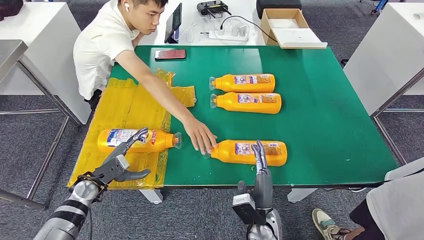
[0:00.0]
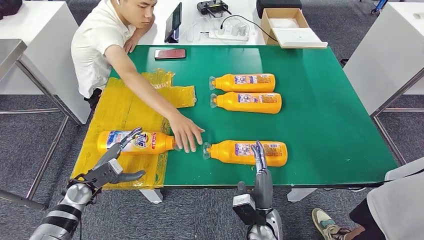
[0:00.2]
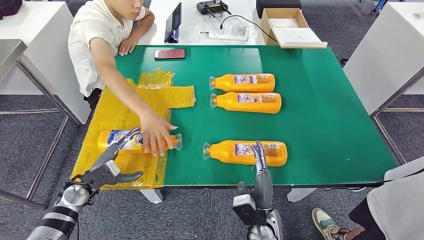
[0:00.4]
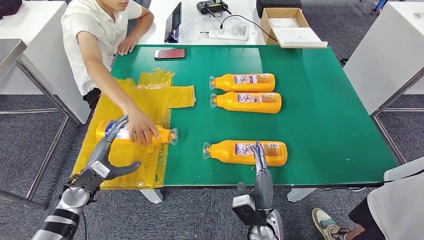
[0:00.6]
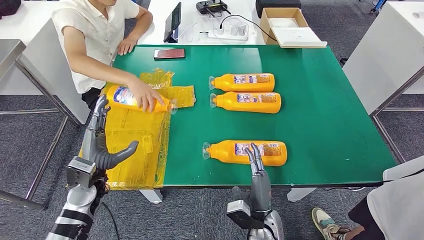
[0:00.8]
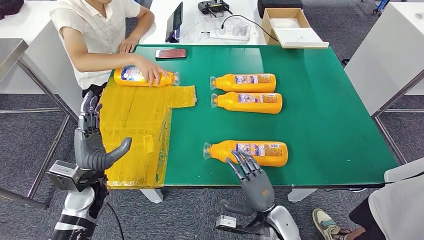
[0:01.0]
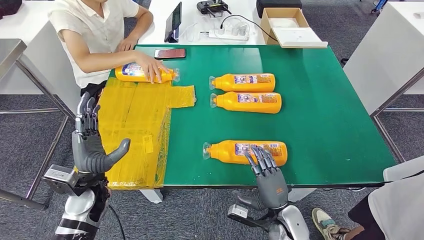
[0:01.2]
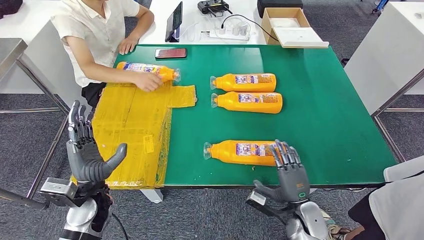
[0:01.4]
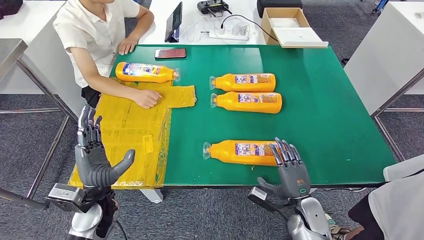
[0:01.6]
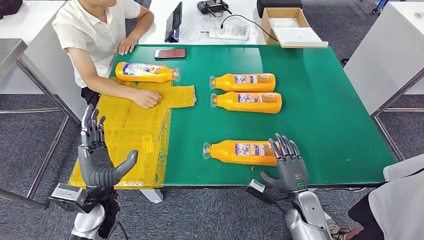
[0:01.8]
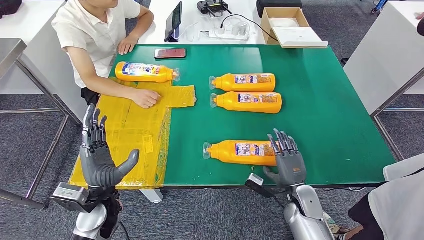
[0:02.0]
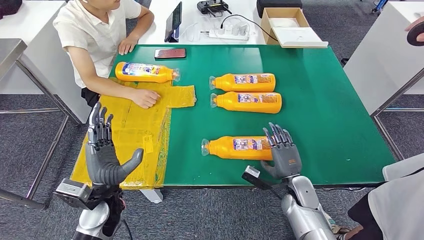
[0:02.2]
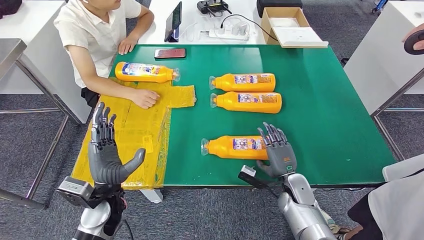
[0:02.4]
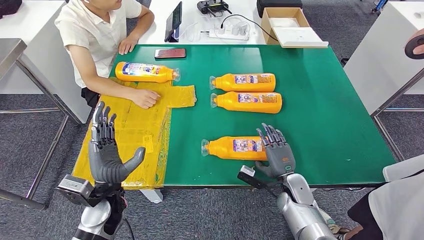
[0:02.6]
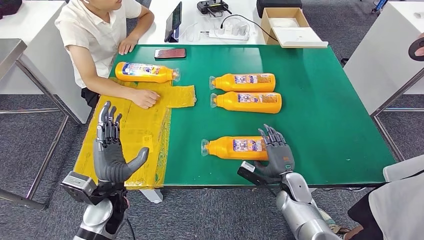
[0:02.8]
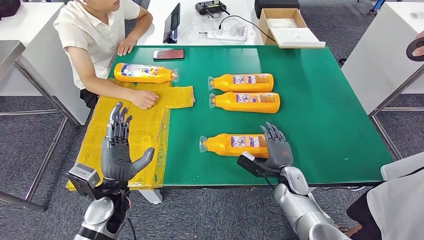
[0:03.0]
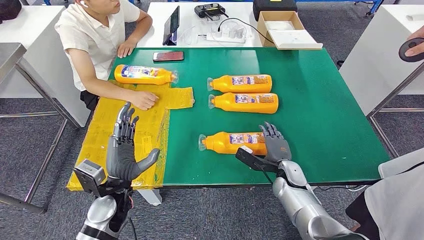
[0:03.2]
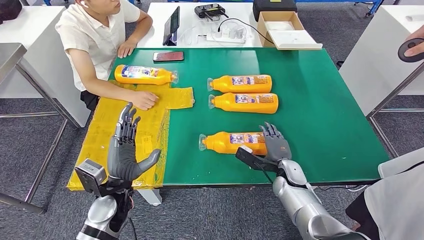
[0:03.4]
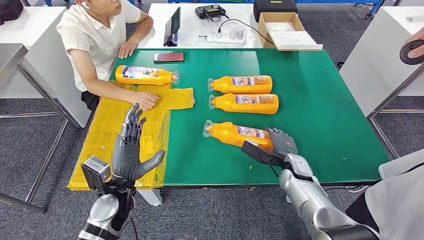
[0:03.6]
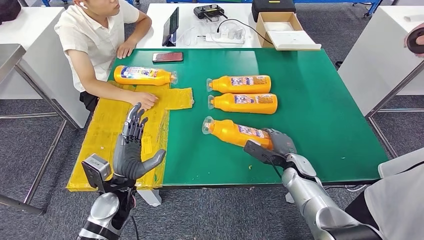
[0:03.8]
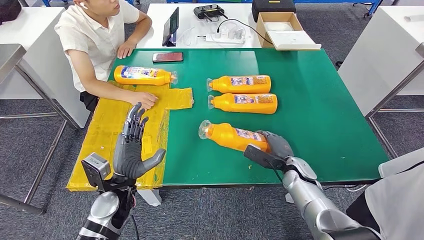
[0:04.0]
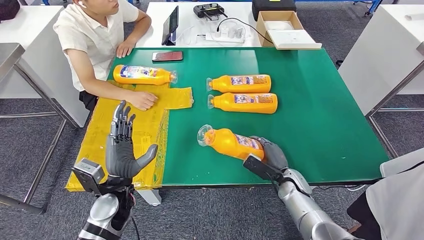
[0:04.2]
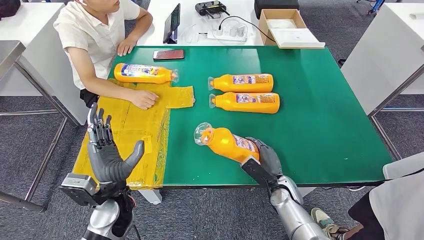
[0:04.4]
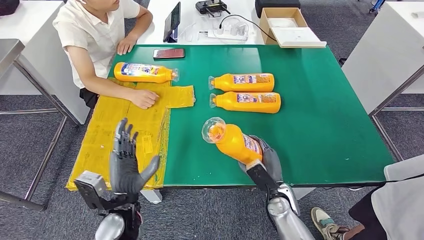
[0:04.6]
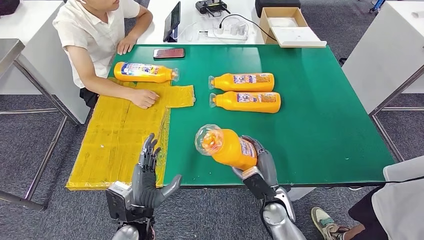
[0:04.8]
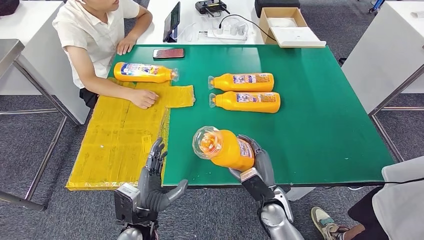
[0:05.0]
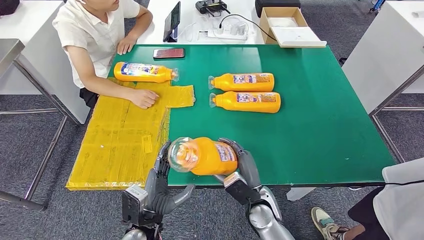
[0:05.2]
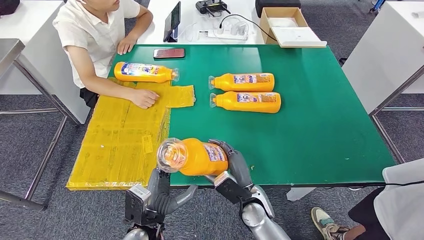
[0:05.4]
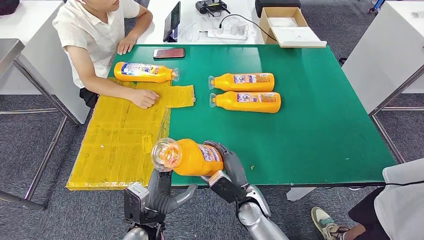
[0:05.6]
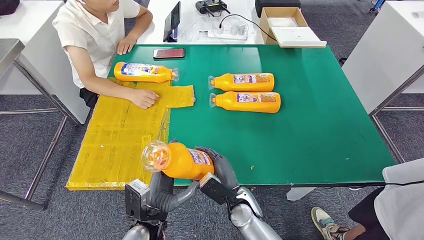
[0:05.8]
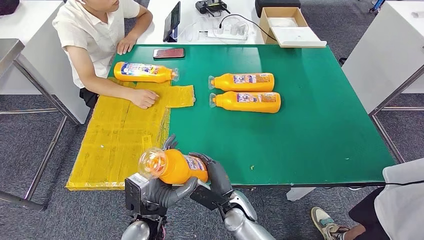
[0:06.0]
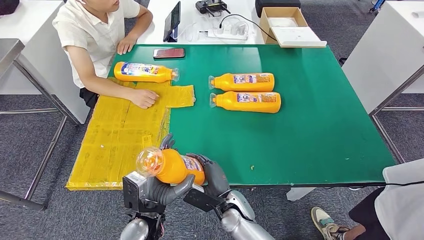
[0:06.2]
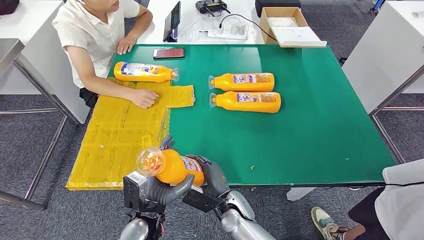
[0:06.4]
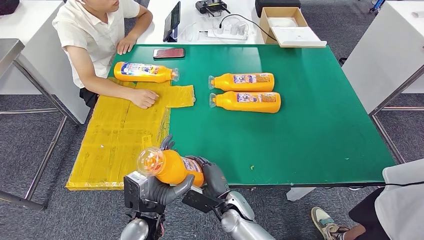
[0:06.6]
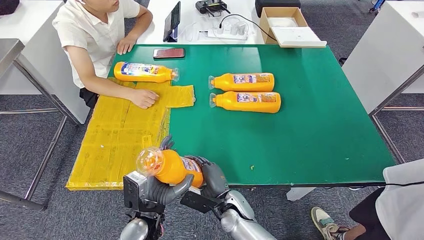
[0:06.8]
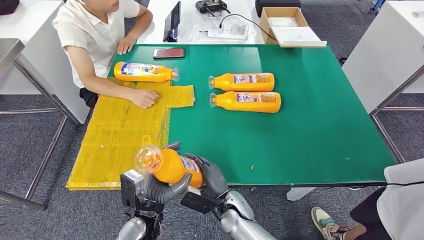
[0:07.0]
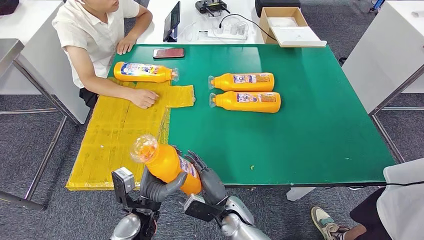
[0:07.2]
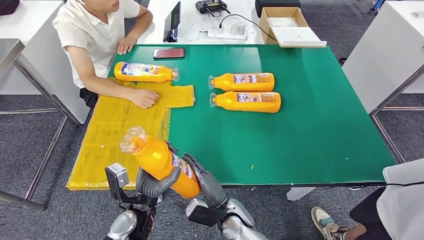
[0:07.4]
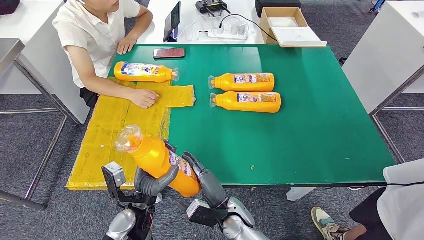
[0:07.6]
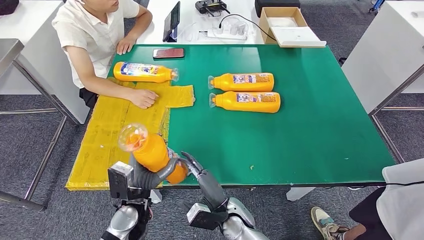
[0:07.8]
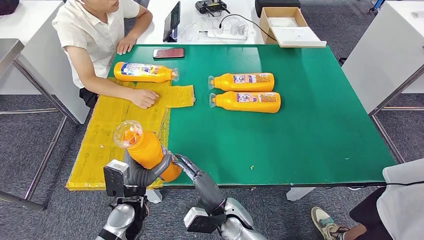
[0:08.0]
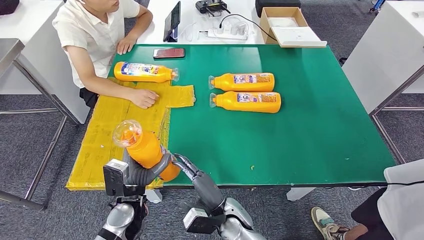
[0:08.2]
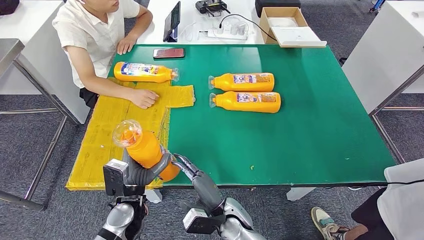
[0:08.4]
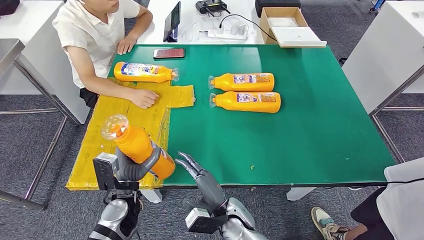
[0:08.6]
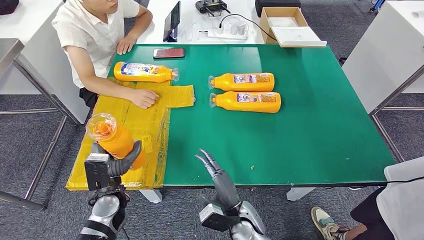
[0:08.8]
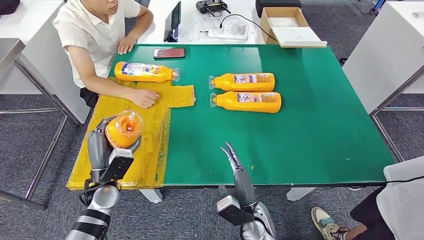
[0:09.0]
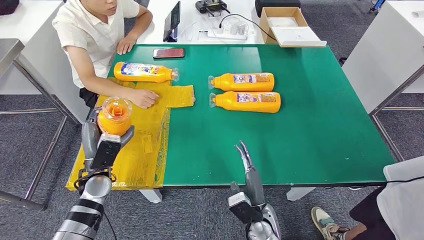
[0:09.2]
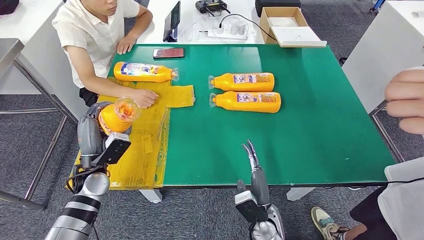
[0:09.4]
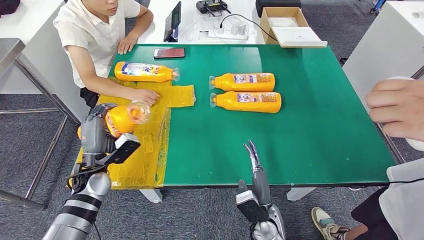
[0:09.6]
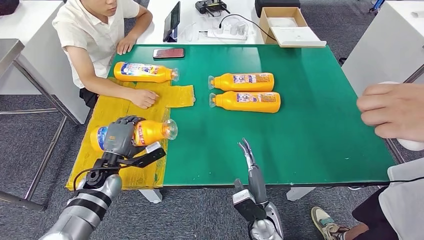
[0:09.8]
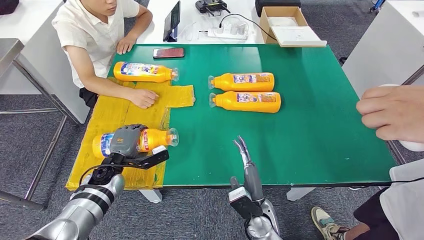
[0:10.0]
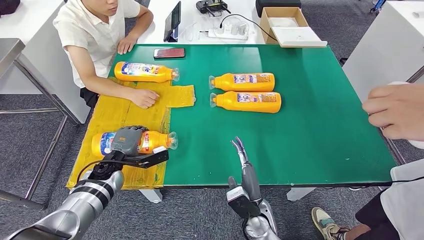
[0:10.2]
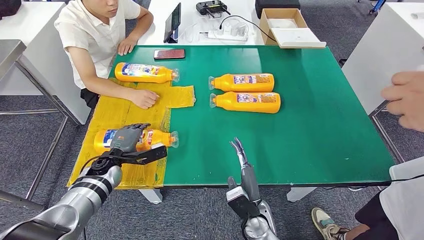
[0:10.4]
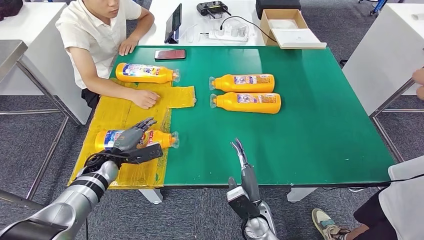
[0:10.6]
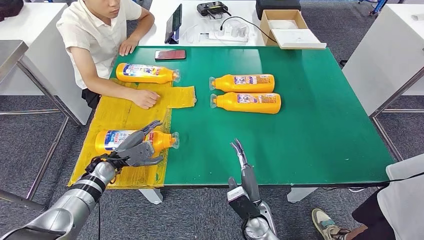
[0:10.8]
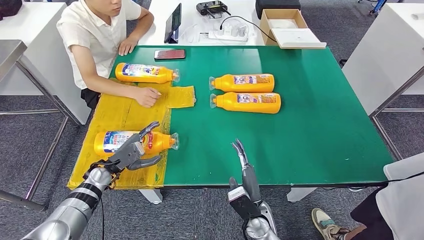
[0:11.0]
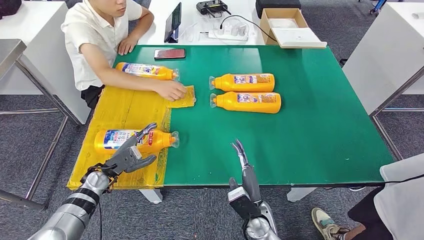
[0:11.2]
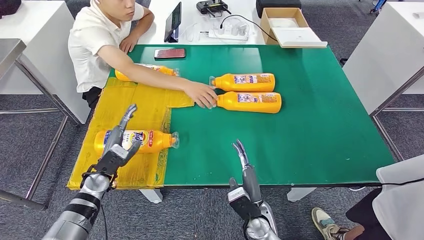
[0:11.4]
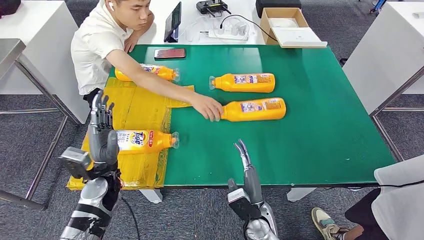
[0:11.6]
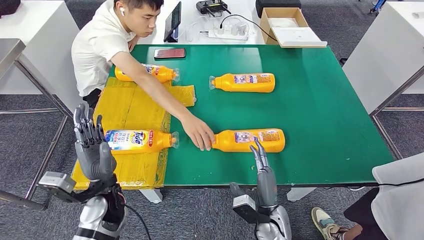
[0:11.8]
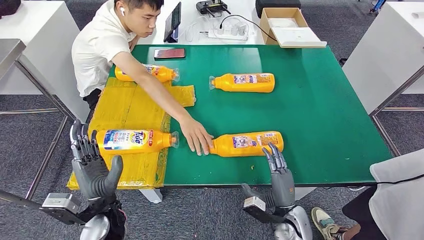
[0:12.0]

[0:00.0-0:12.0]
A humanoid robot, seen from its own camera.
Step, 1.0 to 5.6 s: Pick up the bottle from the table.
6.0 to 7.6 s: The hands stay close to where they were, moving slightly.
7.6 to 9.0 s: The right hand is displaced to the right by about 5 cm. Meanwhile the left hand shifts about 10 cm to the left and forward.
9.0 to 10.4 s: The left hand heads forward, covering some 10 cm.

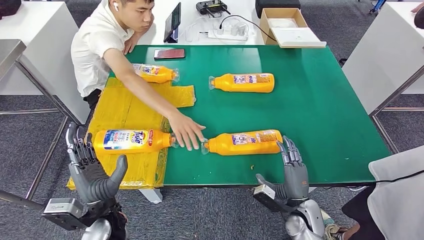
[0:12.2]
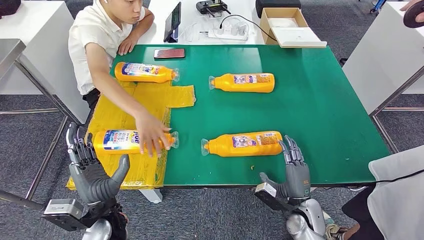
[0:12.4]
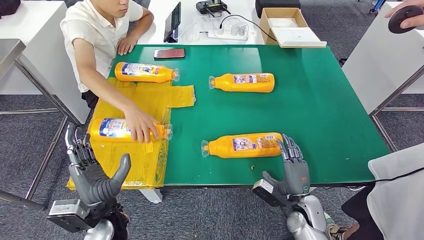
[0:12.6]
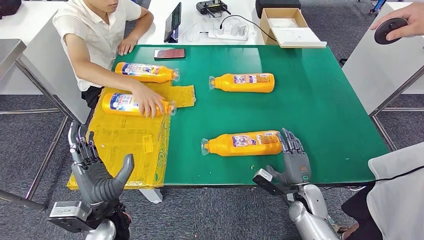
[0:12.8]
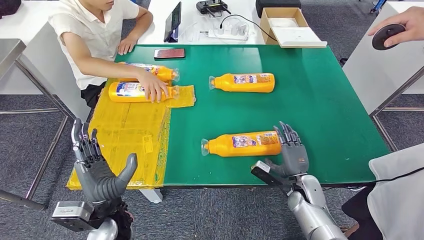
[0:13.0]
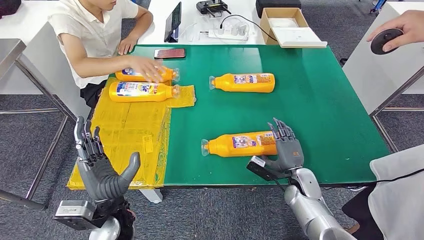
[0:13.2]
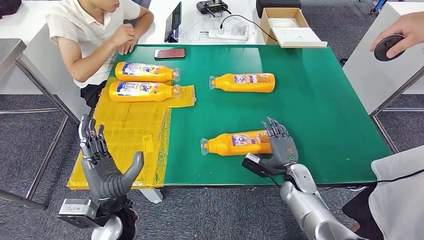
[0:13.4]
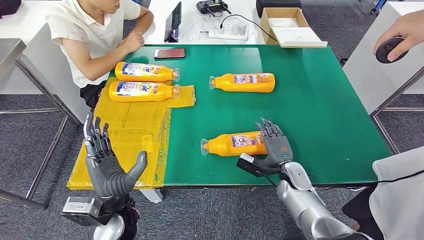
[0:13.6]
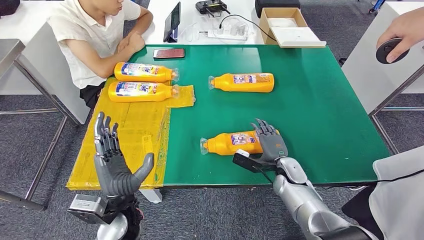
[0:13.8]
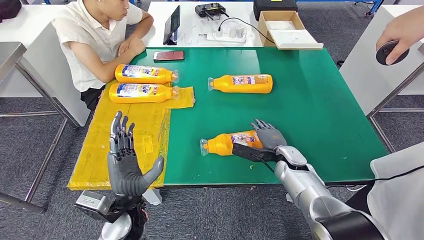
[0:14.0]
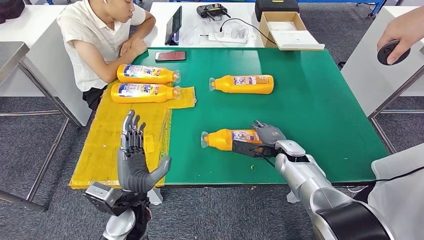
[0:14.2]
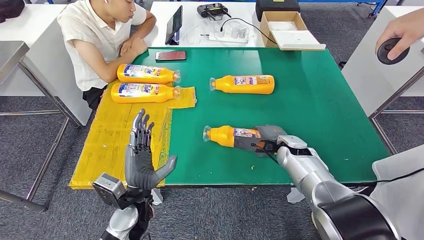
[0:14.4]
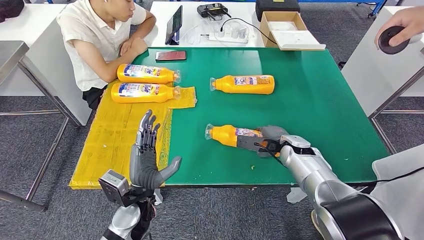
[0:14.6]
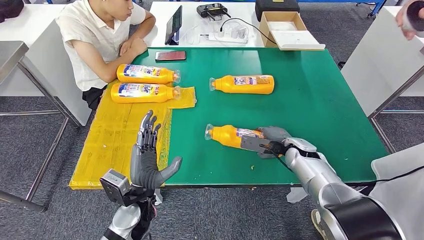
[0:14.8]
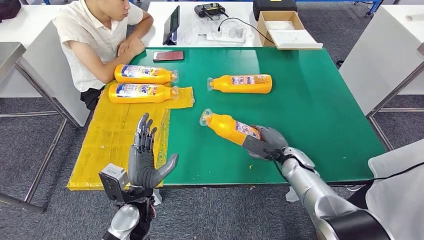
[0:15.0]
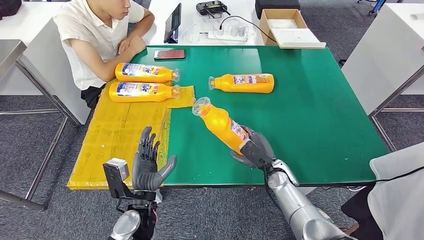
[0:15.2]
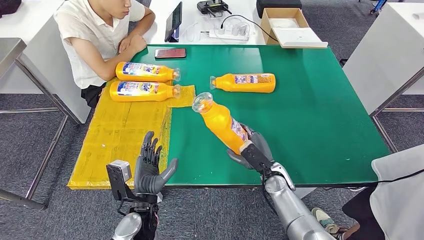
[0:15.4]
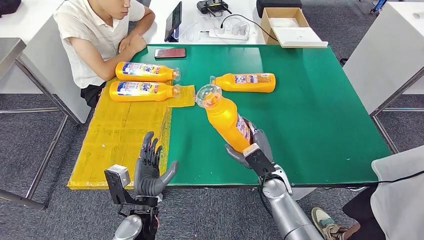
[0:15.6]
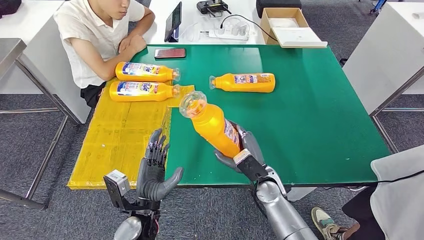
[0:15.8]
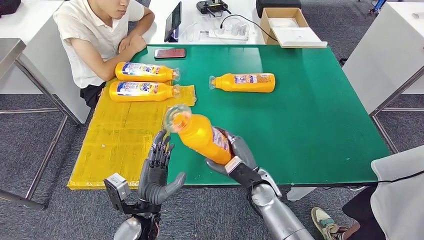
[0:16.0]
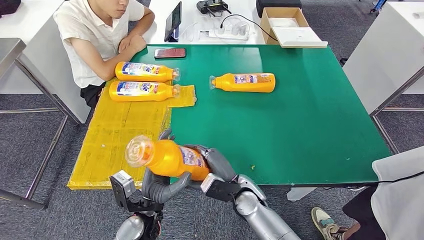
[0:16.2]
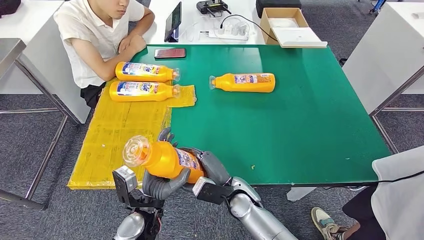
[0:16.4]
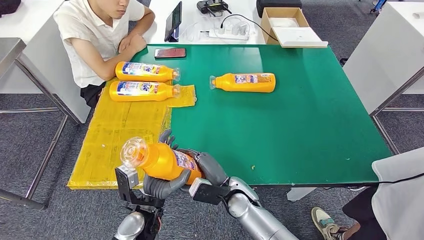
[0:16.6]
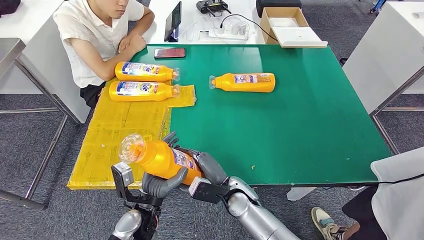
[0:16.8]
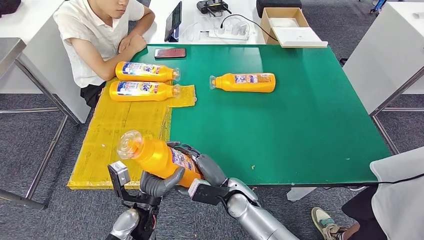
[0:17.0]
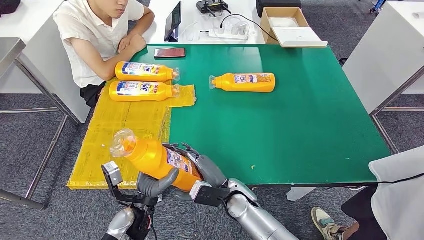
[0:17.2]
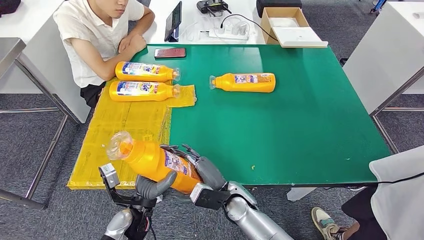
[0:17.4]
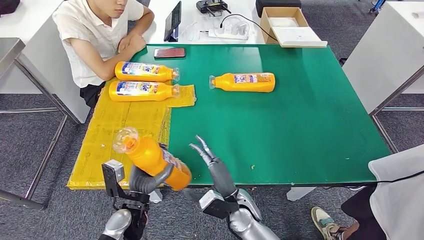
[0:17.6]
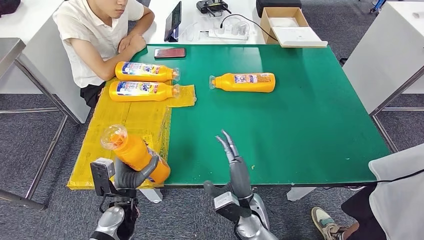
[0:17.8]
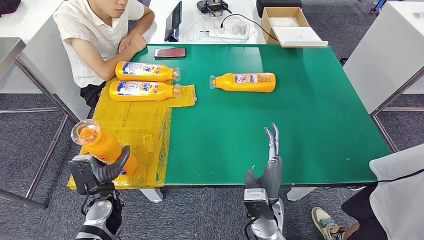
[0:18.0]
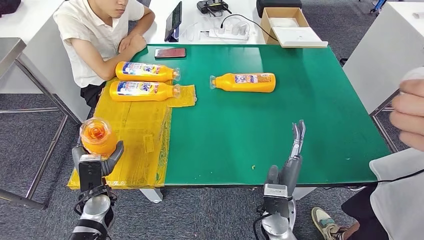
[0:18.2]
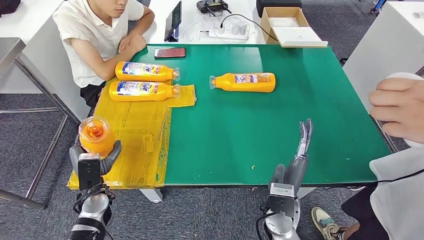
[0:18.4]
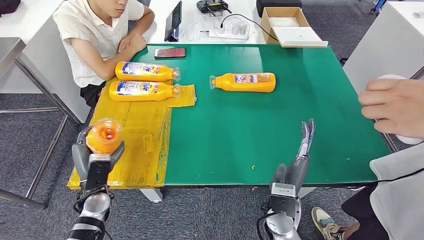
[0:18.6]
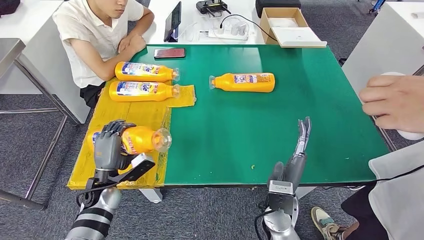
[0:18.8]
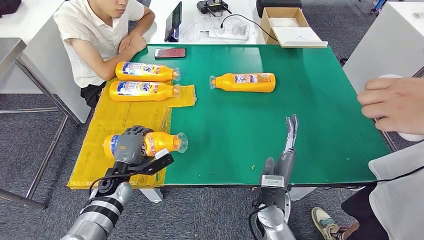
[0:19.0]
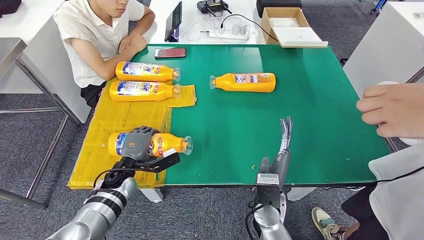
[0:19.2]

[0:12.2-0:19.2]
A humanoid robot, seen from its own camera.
Step, 12.8 to 16.0 s: Pick up the bottle from the table.
16.4 to 17.8 s: The left hand goes roughly 10 cm to the left, while the right hand shifts by approximately 5 cm.
17.8 to 19.2 s: The left hand heads forward, covering about 10 cm.
